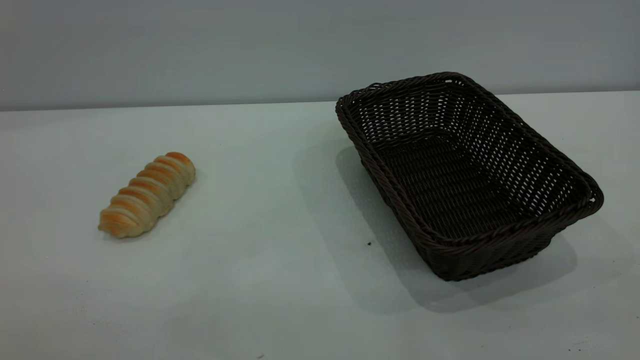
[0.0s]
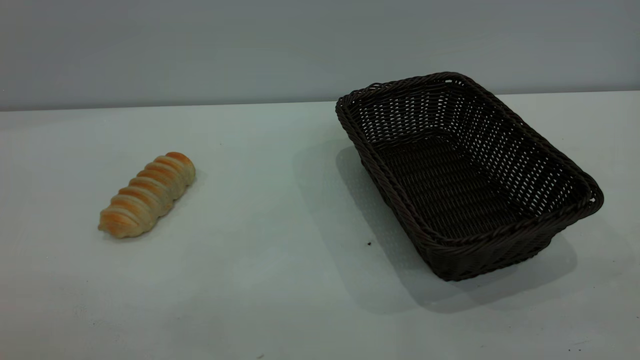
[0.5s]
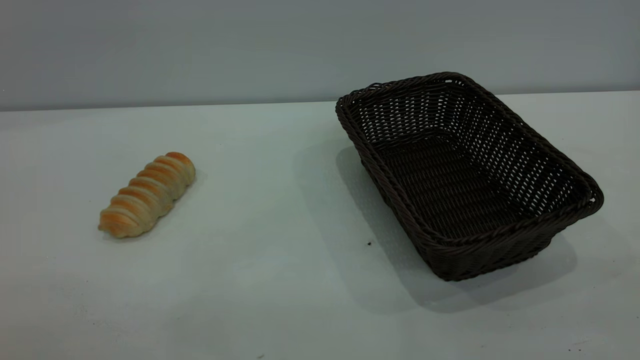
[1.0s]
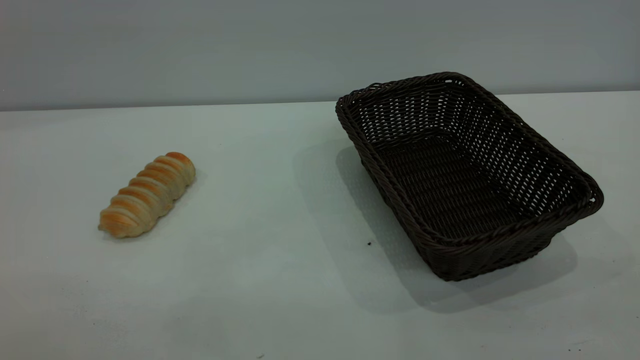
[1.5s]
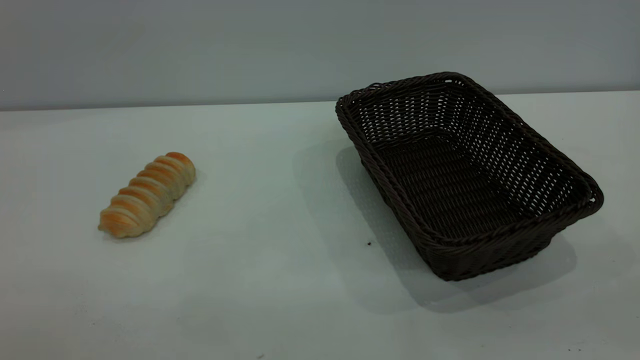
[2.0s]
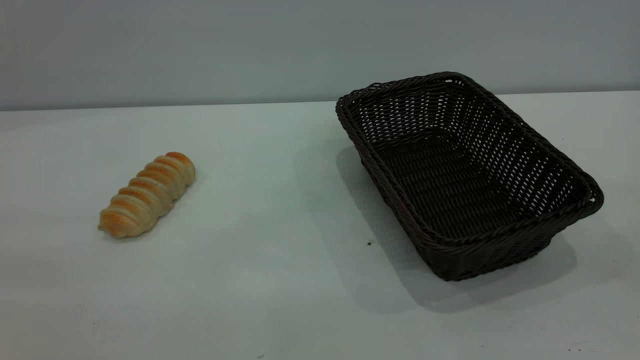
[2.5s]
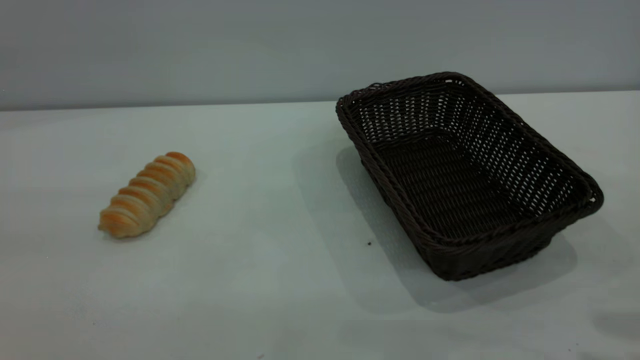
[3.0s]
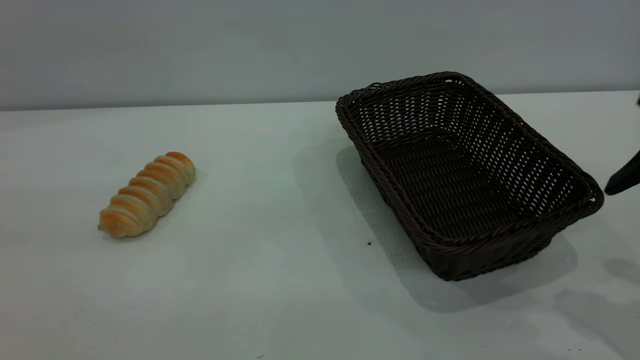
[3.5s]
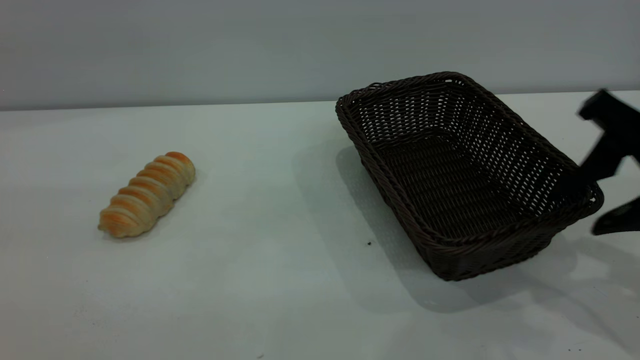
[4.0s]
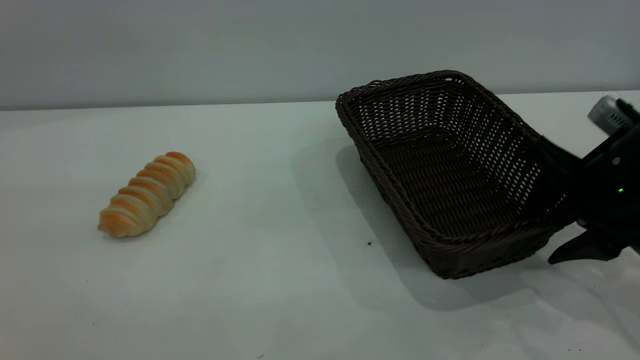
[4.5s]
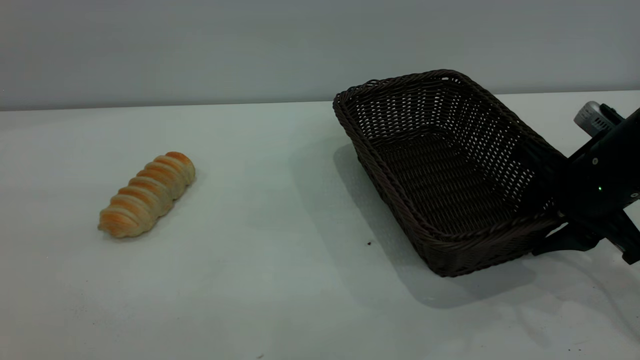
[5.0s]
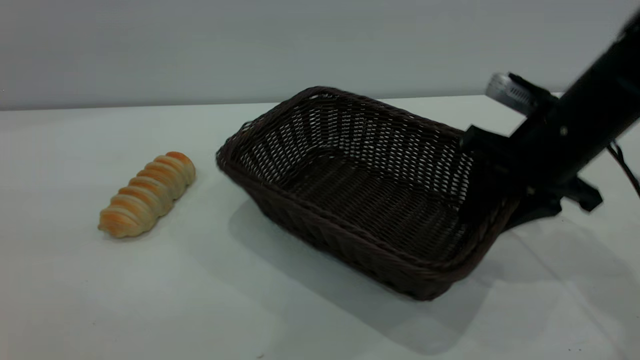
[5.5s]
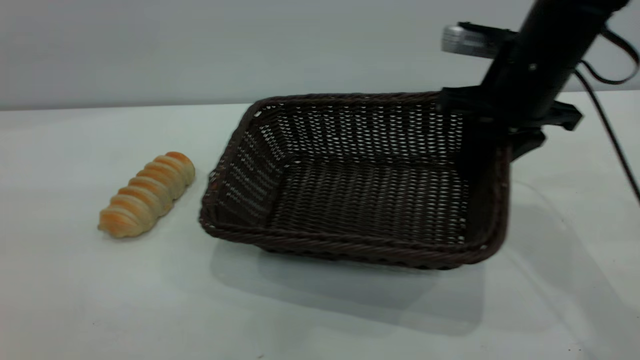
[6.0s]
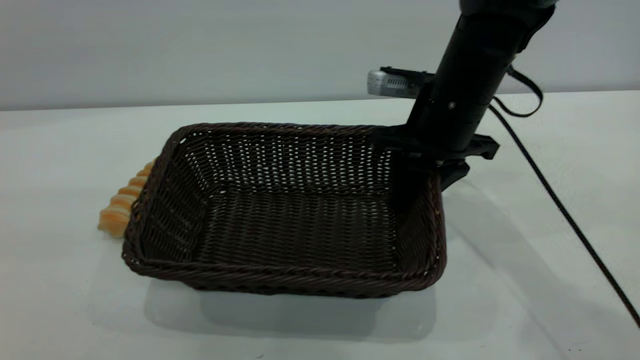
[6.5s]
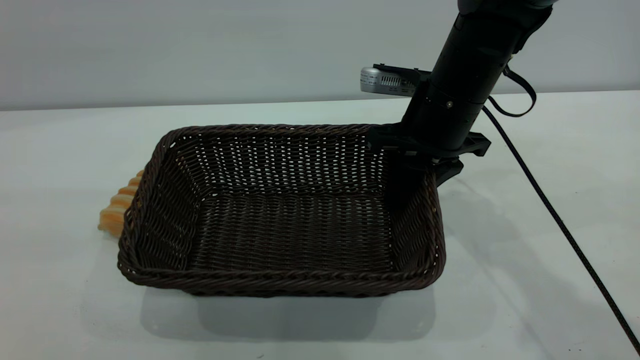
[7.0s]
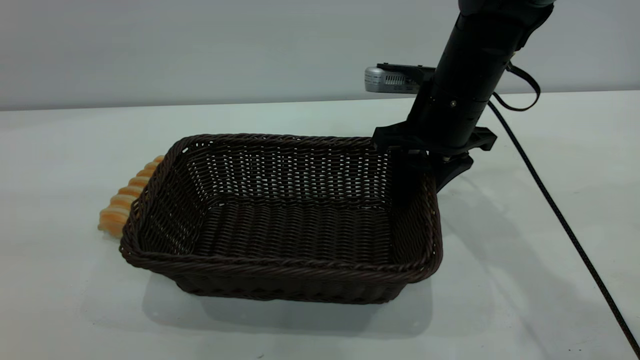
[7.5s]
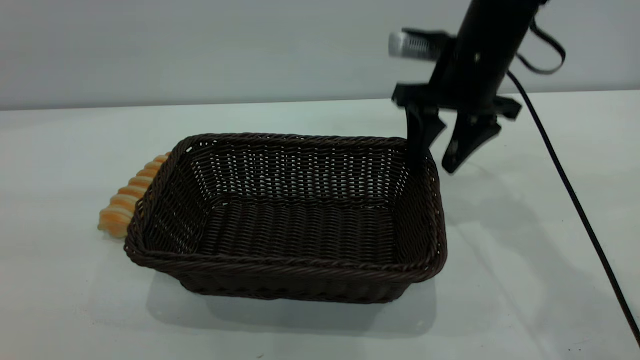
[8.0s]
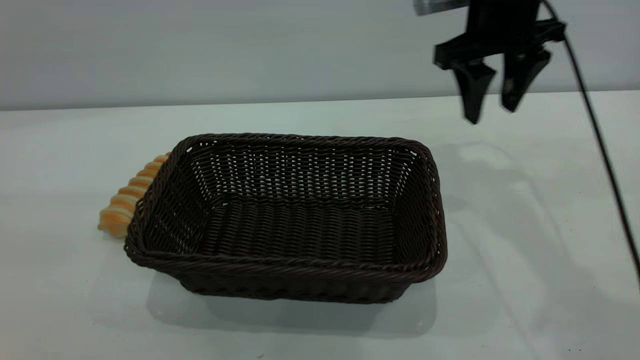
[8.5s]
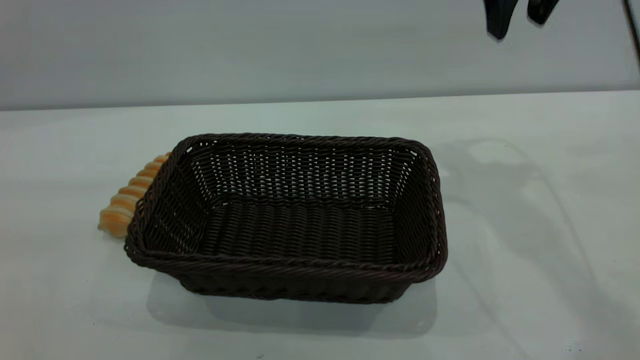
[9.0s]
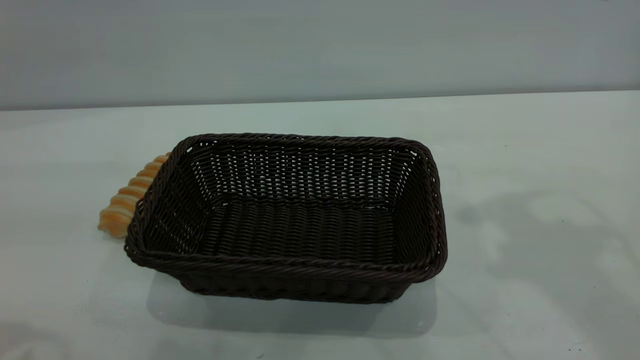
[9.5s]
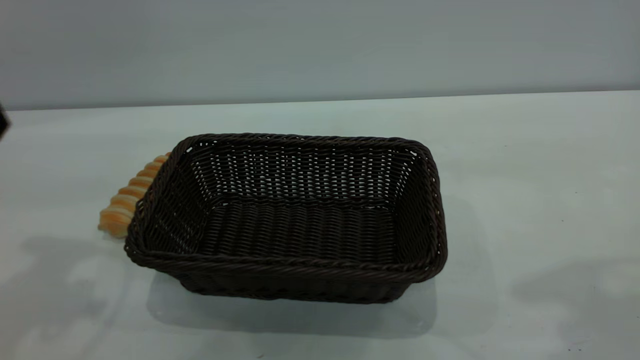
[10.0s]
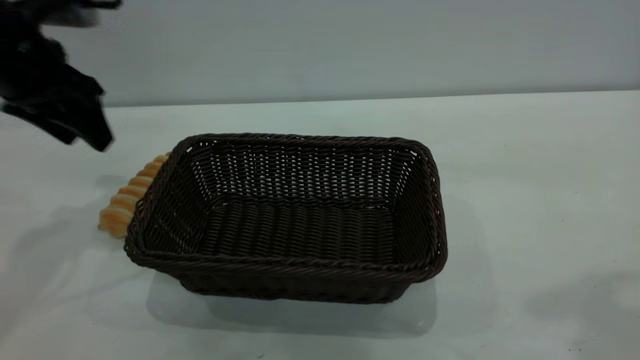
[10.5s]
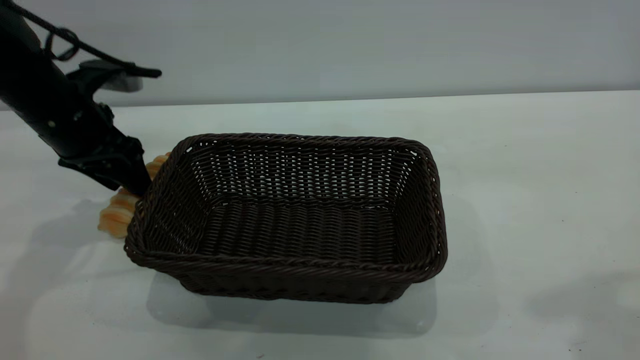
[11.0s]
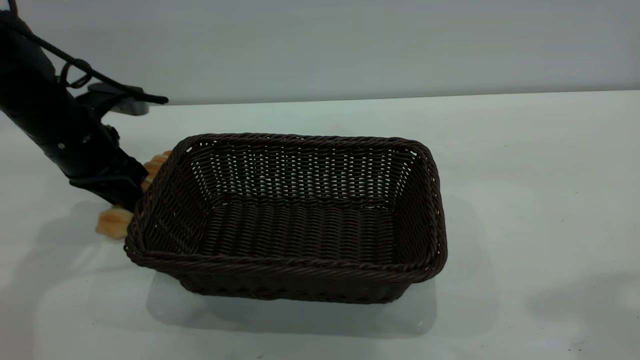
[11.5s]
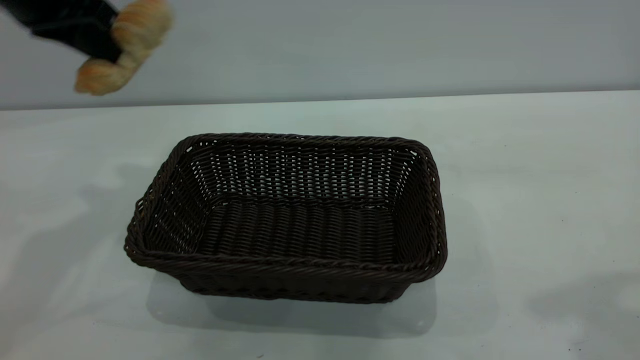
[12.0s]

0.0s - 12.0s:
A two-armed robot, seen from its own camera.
Task of the whole recording: One hand grasps the black basket and places it in the middle of the table, while the other hand picks up the long bread and puts it into the black basket.
Step, 0.0s - 8.0s: Move the basket to the center of view.
2.0s - 4.0s: The right gripper shifts some 30 cm forward and downward.
4.0s - 6.0s: The right gripper shifts approximately 15 cm forward and to the left, and closes.
6.0s - 8.0s: The right gripper shifts by approximately 5 cm, and opens its fingers.
8.0s - 10.0s: The left gripper shifts approximately 20 cm forward; the right gripper goes approximately 35 cm upward, backward and to the right.
10.0s - 12.0s: The left gripper is displaced forward by about 10 cm, travels downward and back again, roughly 15 cm each way, and closes its fingers.

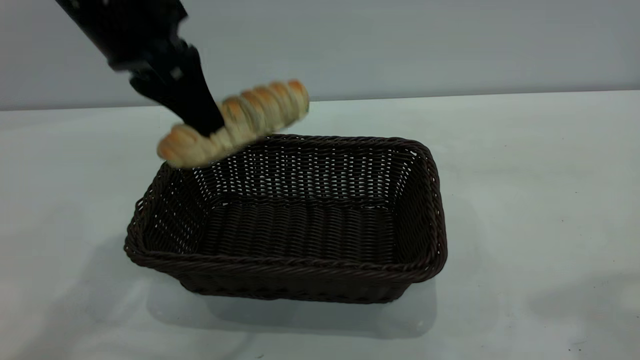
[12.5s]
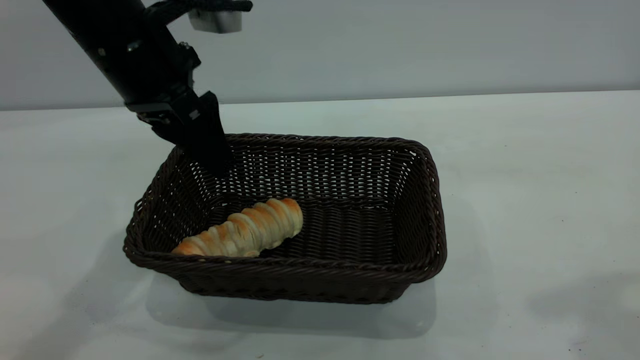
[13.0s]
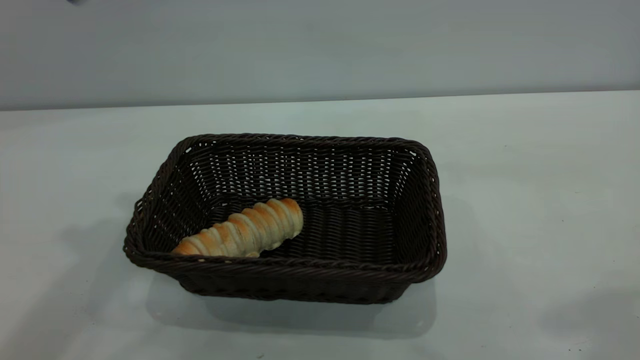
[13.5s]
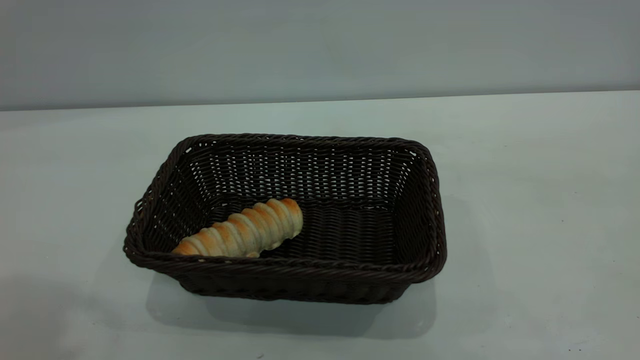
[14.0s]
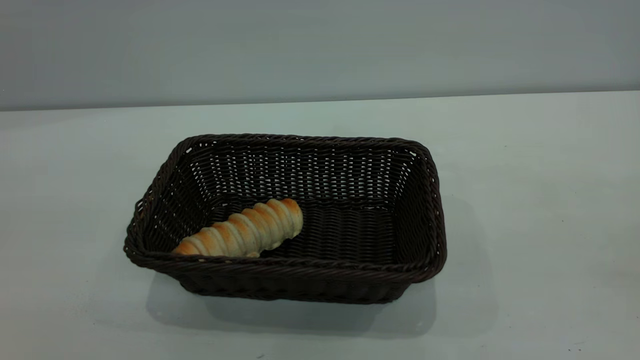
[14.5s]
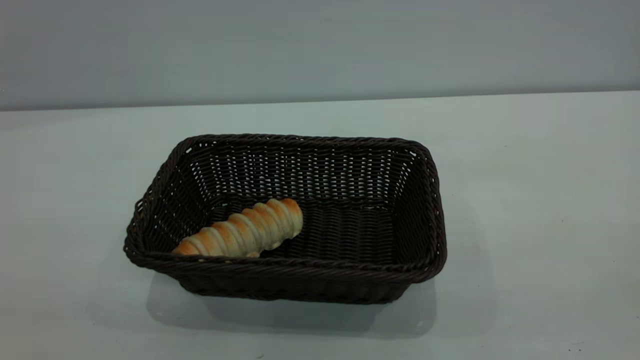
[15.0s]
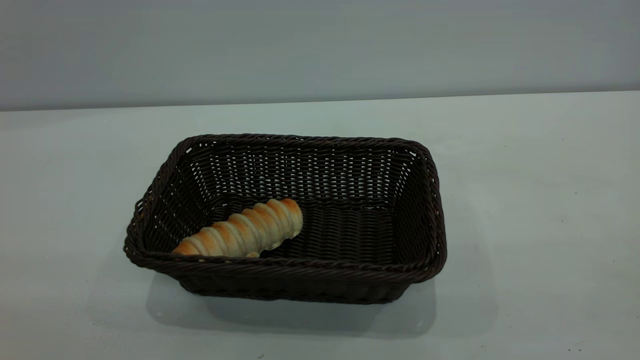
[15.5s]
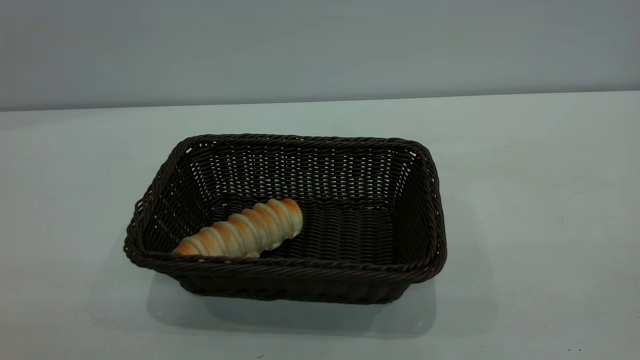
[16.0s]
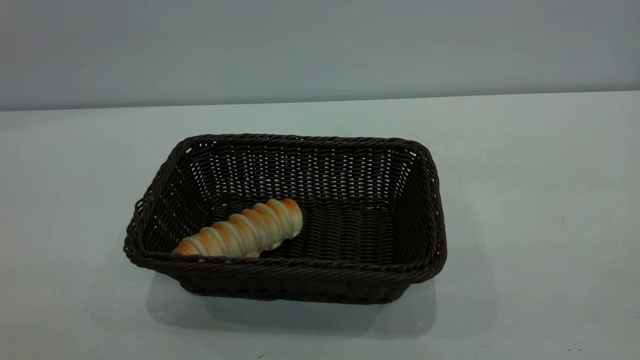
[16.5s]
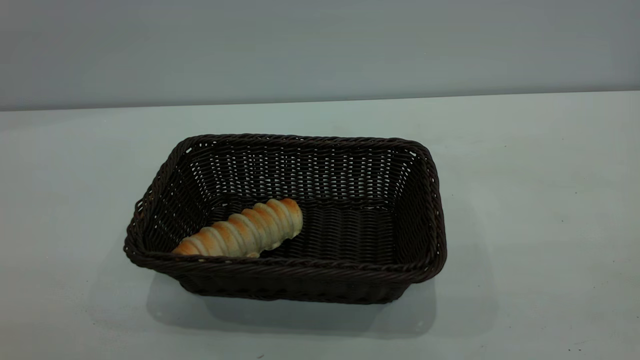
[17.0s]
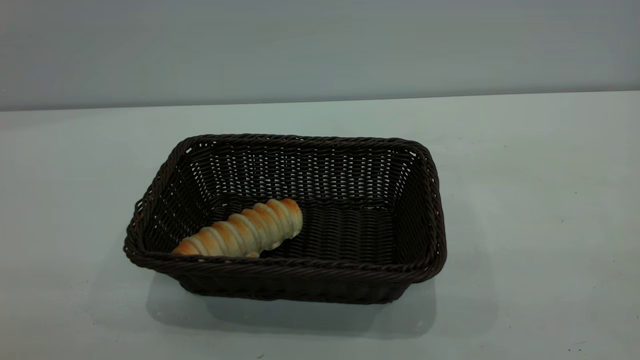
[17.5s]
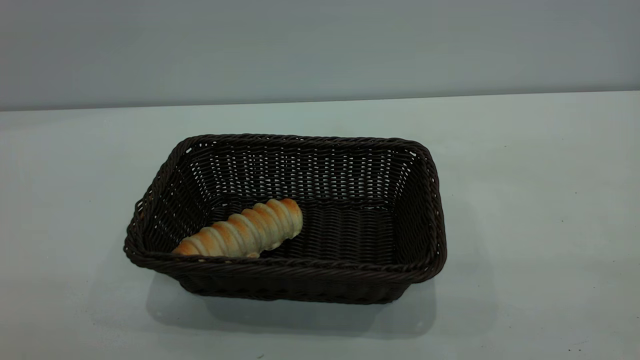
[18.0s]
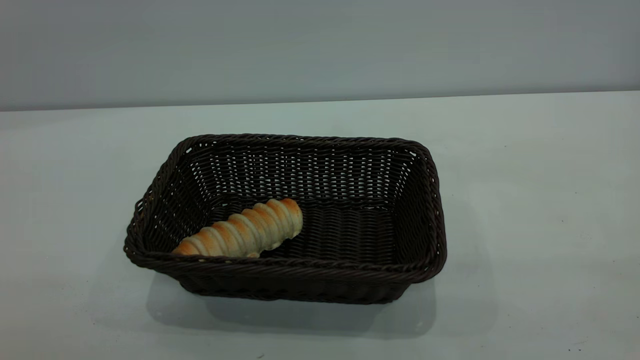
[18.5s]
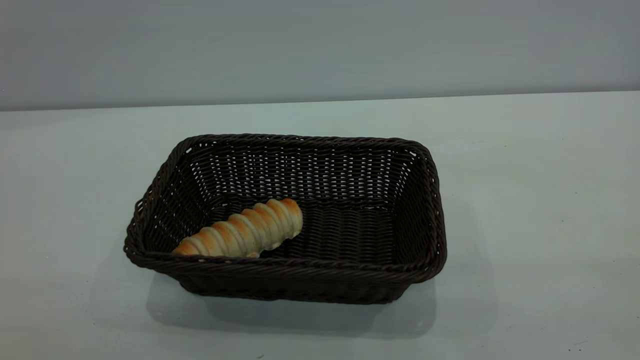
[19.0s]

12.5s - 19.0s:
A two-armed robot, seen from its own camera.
Task of the whole recording: One hand grasps the black basket and places it in the middle of the table, while the other hand picks up the long bread and puts it into the black basket.
12.5s - 14.5s: The right gripper moves backward, about 15 cm. The left gripper goes about 40 cm backward, upward and to the left, and opens up.

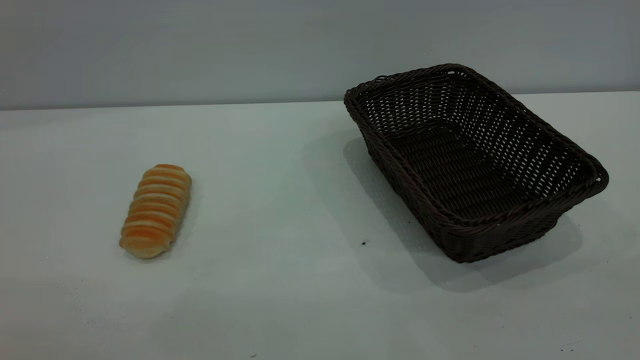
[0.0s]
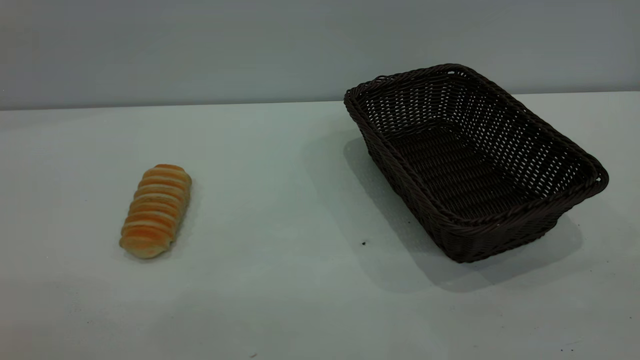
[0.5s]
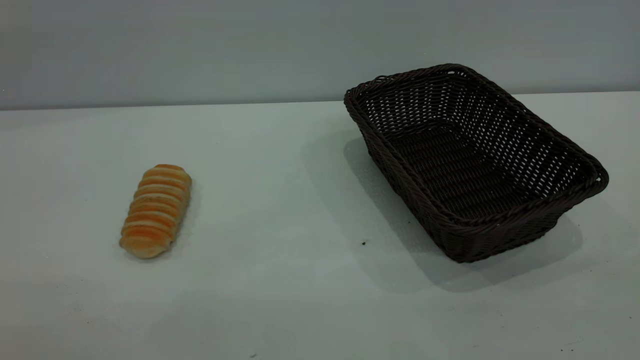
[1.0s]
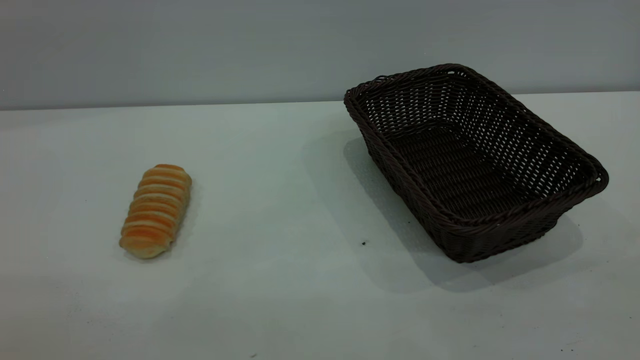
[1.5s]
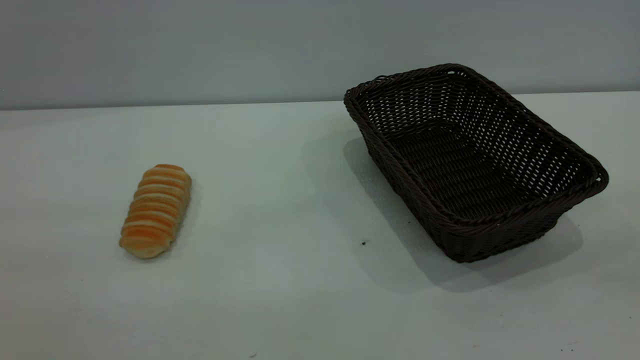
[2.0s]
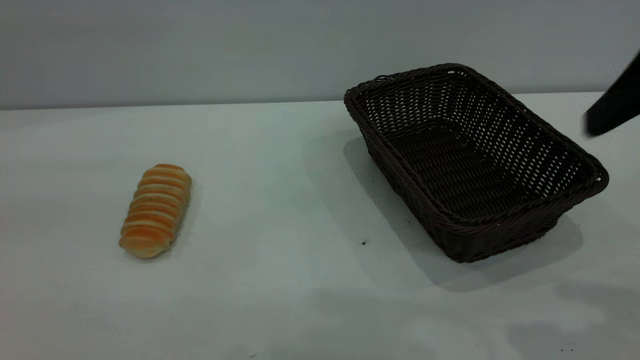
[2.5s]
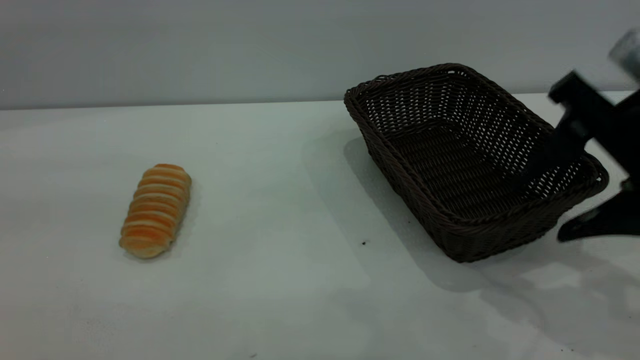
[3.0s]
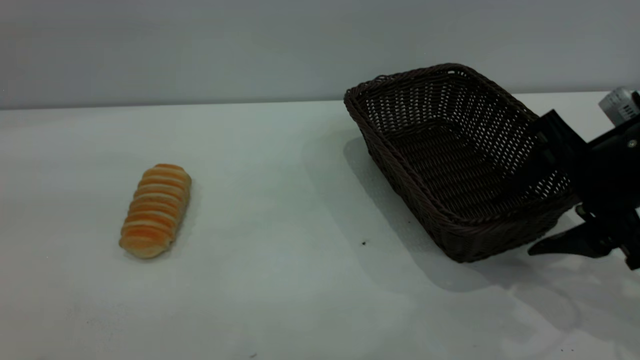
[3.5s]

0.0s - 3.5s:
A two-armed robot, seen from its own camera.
Task of the whole recording: One hand grasps the black basket and places it in the middle of the table, while the other hand picks up the long bread and puts it into the black basket.
2.0s - 3.5s: The right gripper moves downward and forward, roughly 30 cm.
